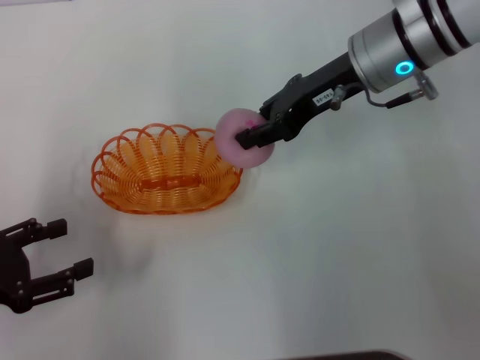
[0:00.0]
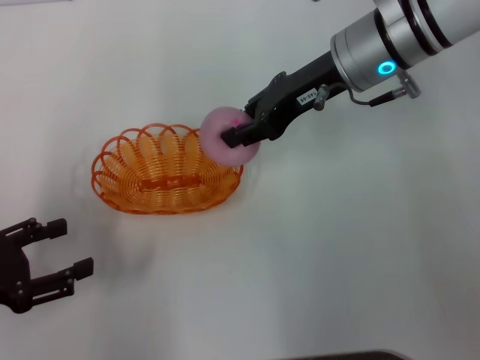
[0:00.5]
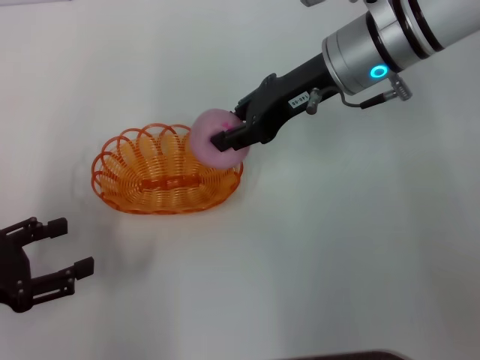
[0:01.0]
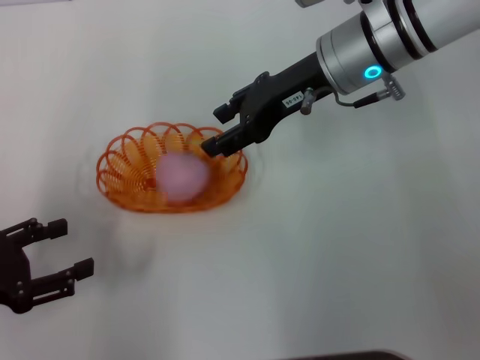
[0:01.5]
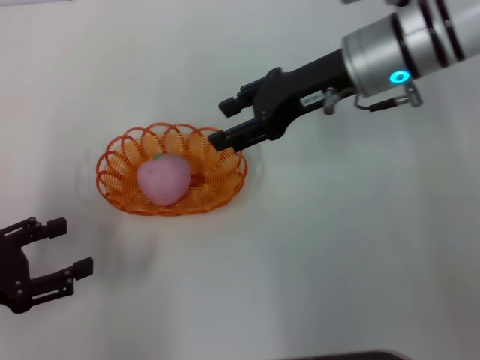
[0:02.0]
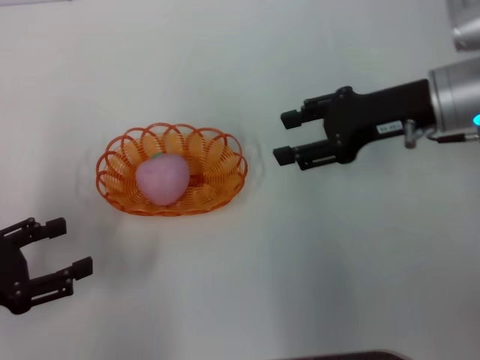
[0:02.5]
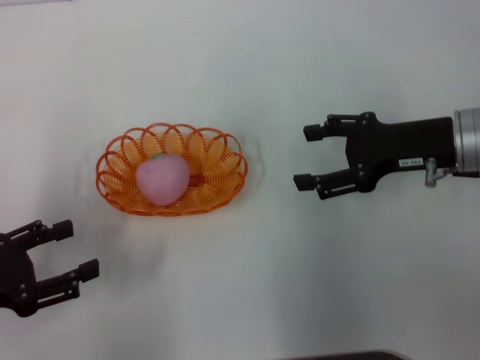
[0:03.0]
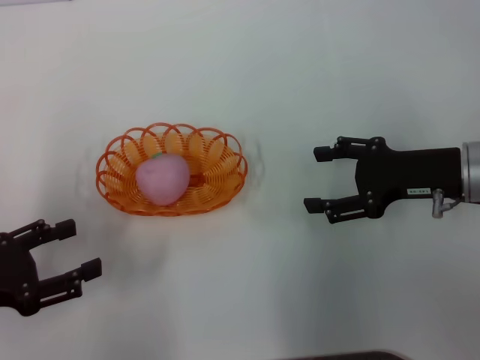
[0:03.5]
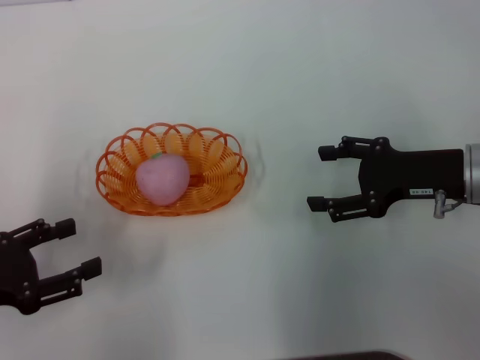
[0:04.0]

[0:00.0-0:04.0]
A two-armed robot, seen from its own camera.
Step, 0:00.5 to 0:02.5: Place the peach into the basket with the right gripper.
0:00.0 to 0:02.0: The right gripper opens.
0:02.0 to 0:04.0: The right gripper shifts roughly 15 cm to the right, backward and downward, and opens.
